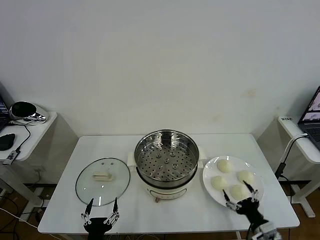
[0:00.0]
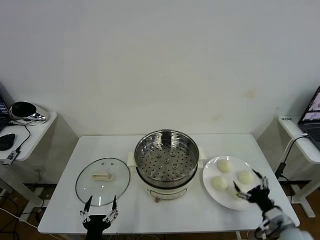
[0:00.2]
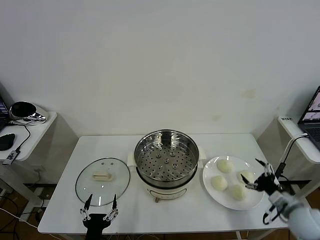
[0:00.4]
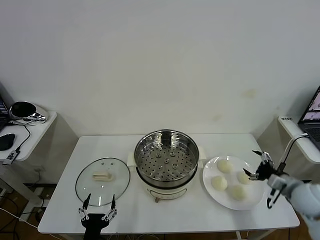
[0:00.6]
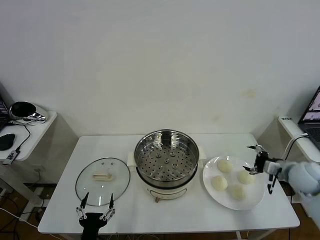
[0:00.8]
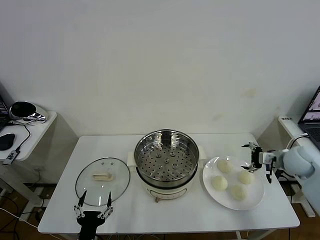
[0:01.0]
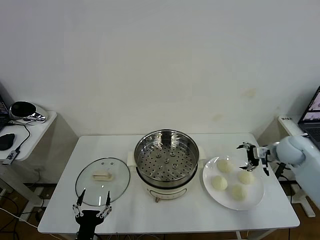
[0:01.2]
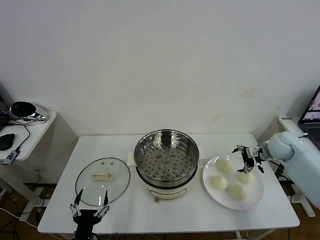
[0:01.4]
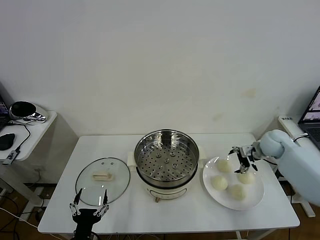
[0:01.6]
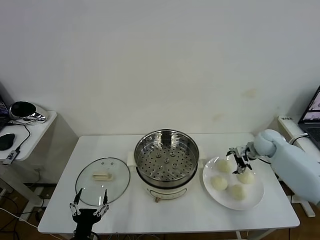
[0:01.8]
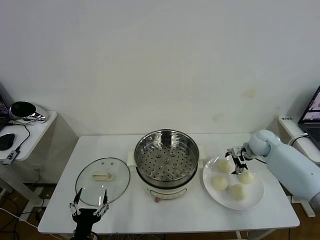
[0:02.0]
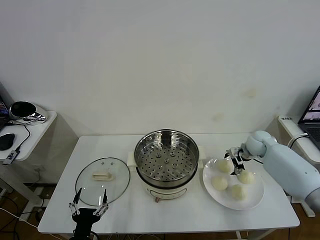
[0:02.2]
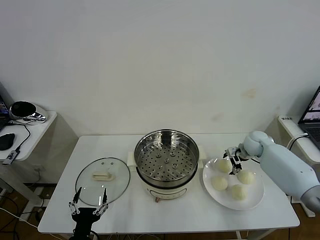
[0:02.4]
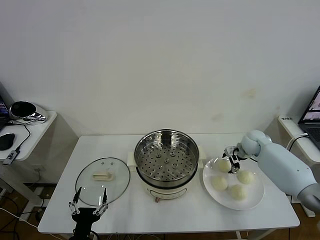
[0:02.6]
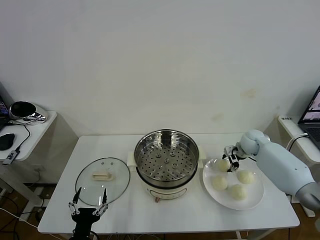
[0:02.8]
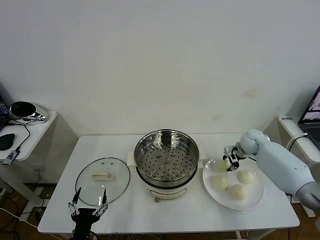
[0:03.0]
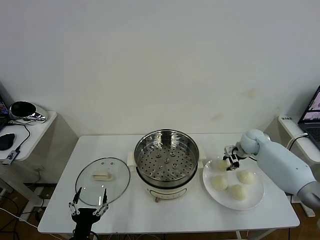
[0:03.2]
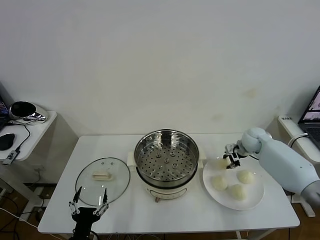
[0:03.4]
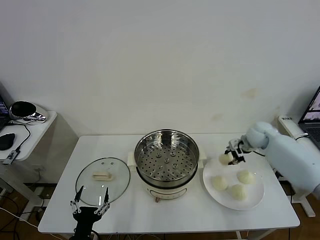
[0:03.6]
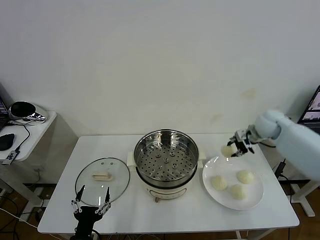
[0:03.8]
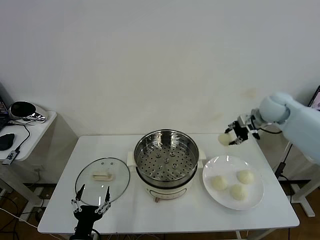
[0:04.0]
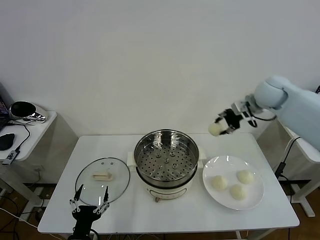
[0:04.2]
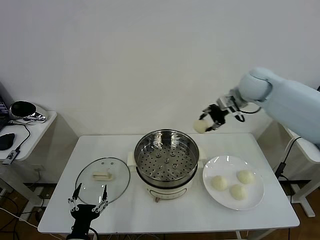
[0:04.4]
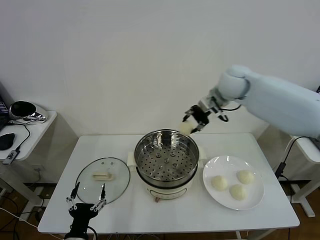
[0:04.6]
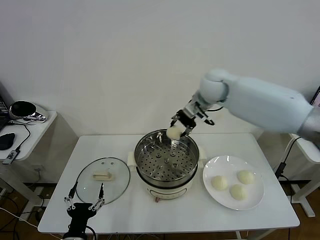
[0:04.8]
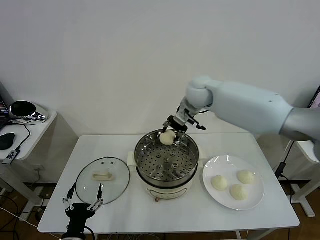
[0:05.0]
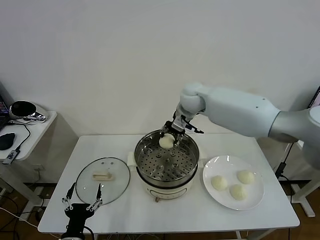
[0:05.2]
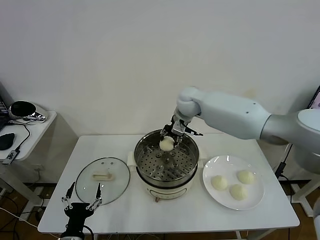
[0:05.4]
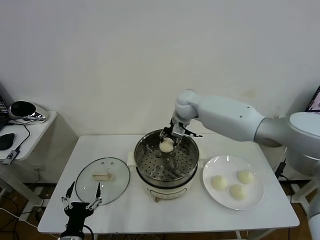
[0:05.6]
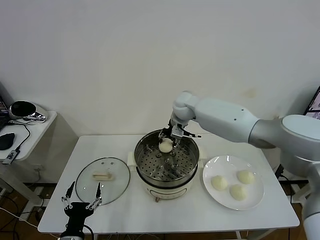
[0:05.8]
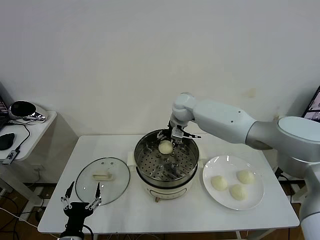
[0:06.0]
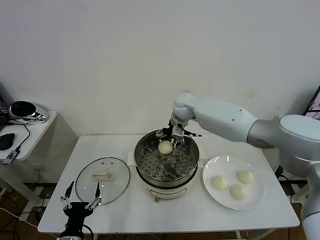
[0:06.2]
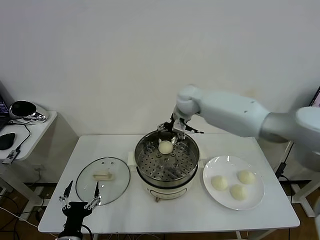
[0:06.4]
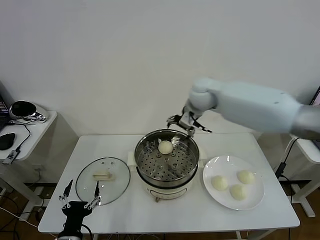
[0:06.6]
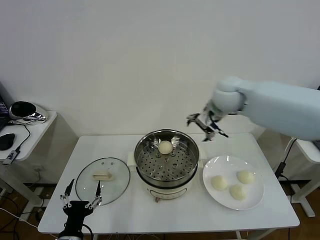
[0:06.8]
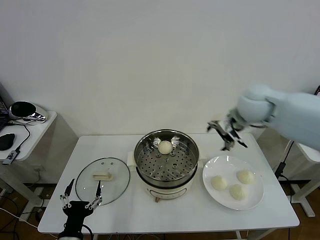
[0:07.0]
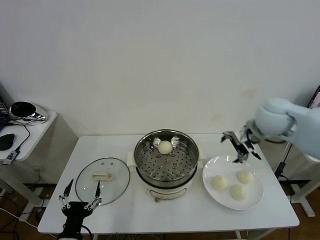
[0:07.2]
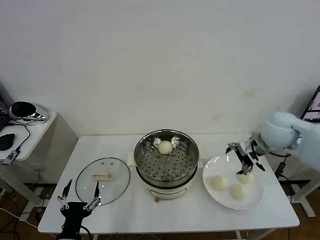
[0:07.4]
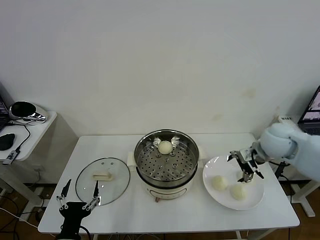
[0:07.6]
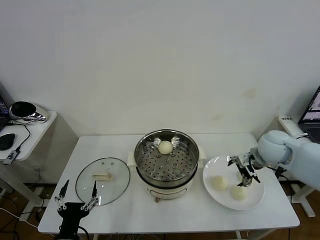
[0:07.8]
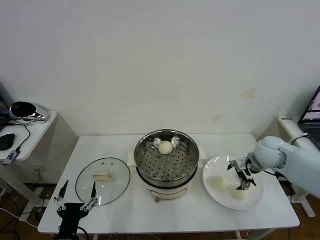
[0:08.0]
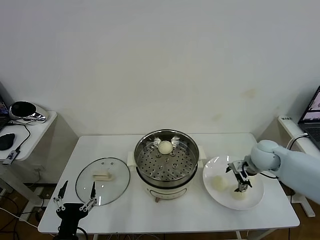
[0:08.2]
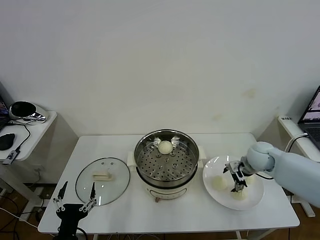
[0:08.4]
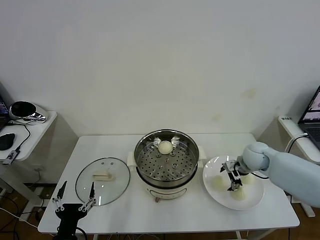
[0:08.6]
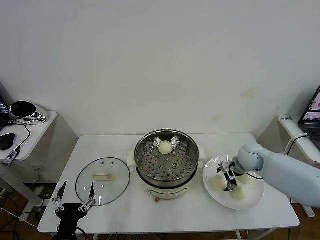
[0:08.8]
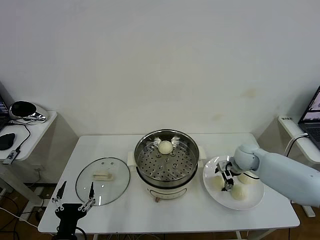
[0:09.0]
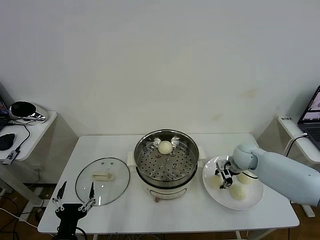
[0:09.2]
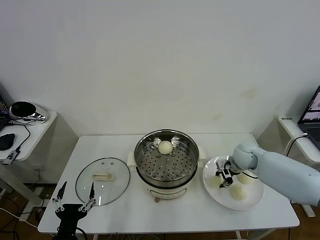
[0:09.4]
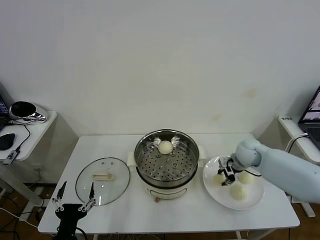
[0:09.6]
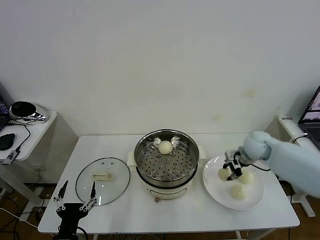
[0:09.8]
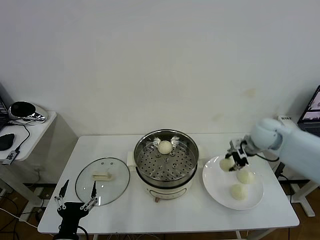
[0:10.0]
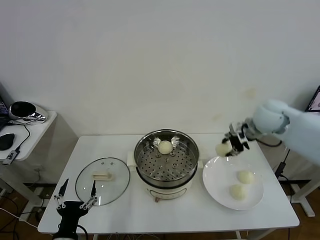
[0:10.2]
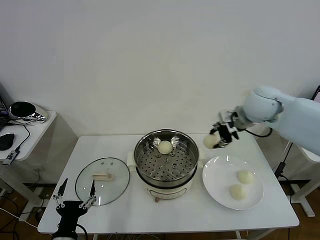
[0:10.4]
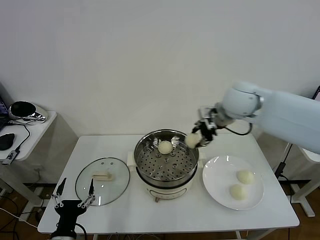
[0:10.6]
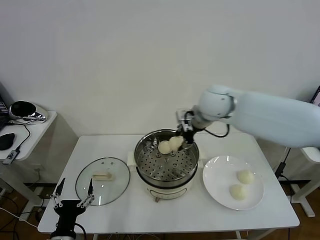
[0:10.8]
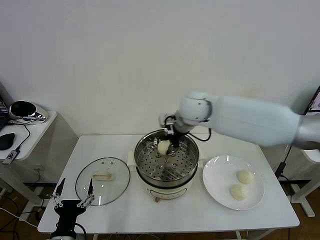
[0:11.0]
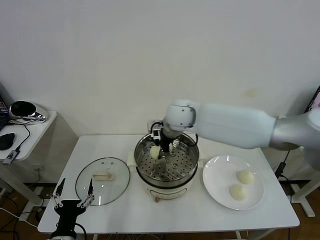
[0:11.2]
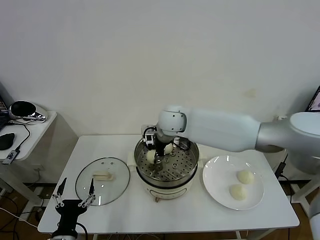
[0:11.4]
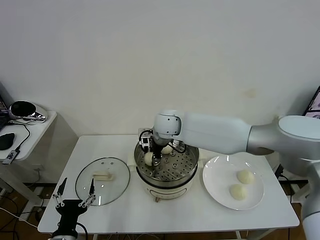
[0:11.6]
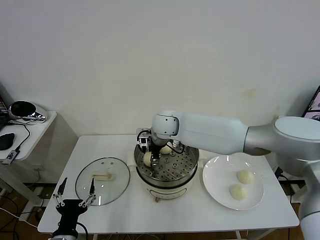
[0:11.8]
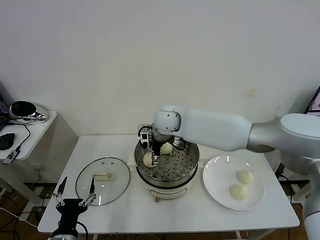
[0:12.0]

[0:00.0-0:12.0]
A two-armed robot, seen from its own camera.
Task of the whole recording: take steamed baozi put them in steamer then cover it.
Step, 0:00.0 to 0:02.8: Grasp the baozi in the plate with right gripper.
Step, 0:03.2 to 0:06.2: Place the baozi on the steamer with right gripper.
Step, 0:06.4 to 0:09.2: Grasp the baozi in the plate with right gripper.
Step, 0:09.4 to 0:12.0: Place the baozi on the steamer with right gripper.
0:01.6 to 0:03.0: The right gripper shifts by about 5 cm, and closes up.
0:03.0 to 0:04.4: The right gripper moves upward and to the left, approximately 30 cm.
0:04.4 to 0:06.0: The right gripper shifts about 20 cm to the left and downward, and opens up.
0:06.0 to 0:07.6: The right gripper goes roughly 30 cm to the right and backward.
0:07.6 to 0:09.0: The right gripper moves downward, about 15 cm.
0:09.0 to 0:10.4: The right gripper is displaced upward by some 25 cm, and closes.
0:10.4 to 0:12.0: The right gripper moves to the left, about 25 cm, and opens.

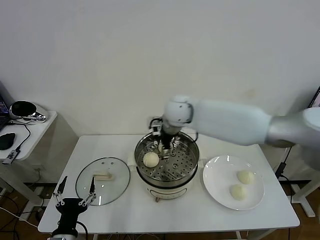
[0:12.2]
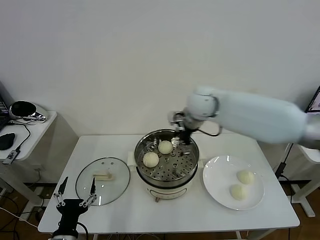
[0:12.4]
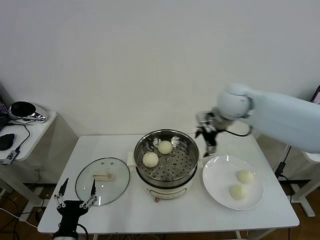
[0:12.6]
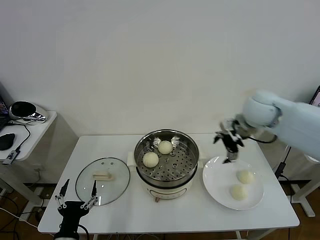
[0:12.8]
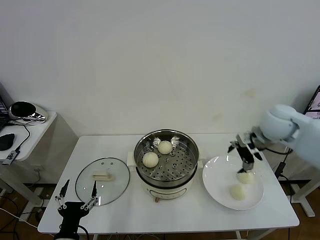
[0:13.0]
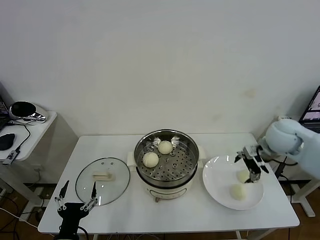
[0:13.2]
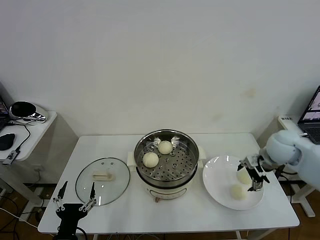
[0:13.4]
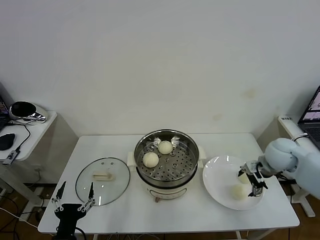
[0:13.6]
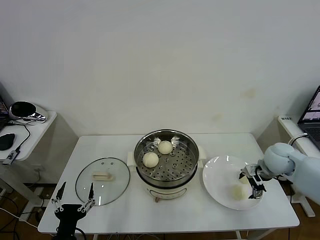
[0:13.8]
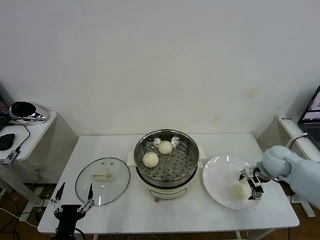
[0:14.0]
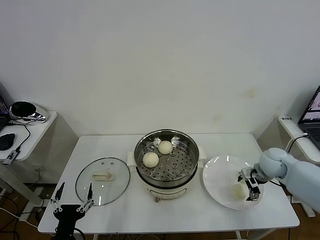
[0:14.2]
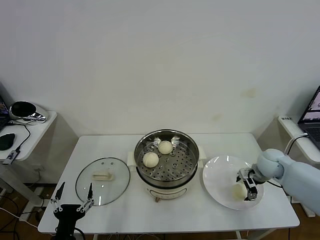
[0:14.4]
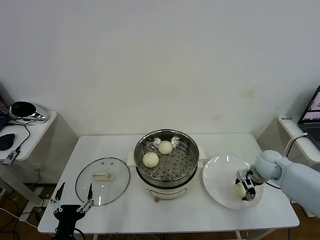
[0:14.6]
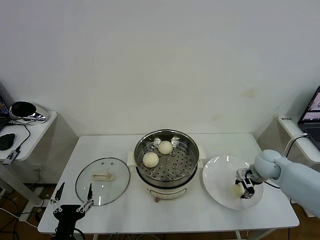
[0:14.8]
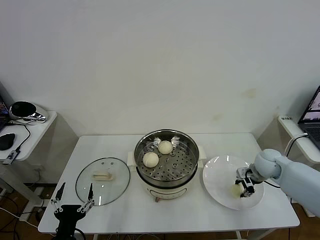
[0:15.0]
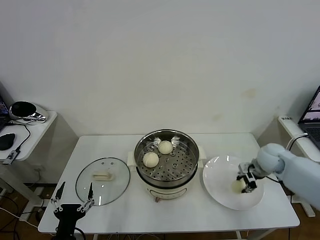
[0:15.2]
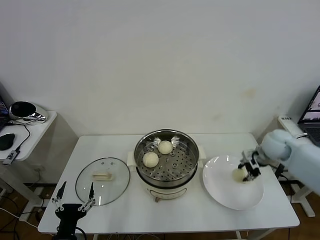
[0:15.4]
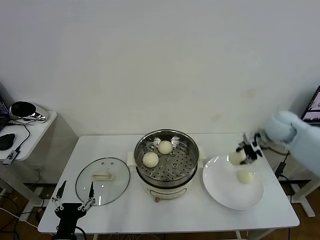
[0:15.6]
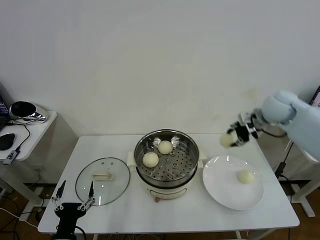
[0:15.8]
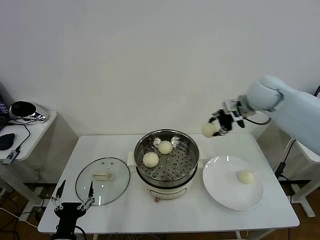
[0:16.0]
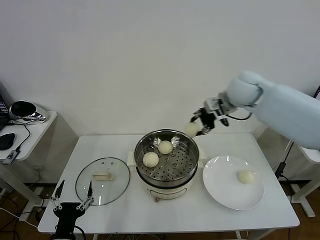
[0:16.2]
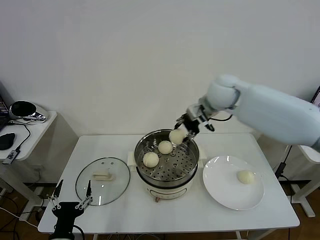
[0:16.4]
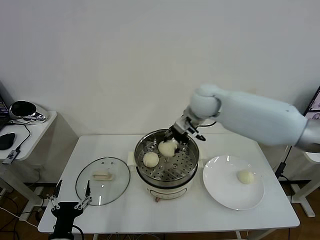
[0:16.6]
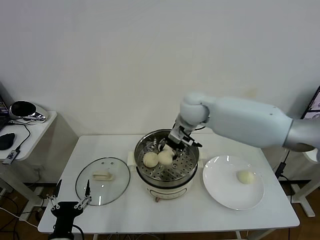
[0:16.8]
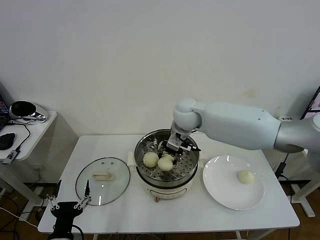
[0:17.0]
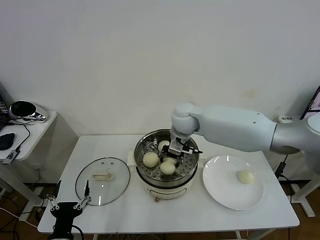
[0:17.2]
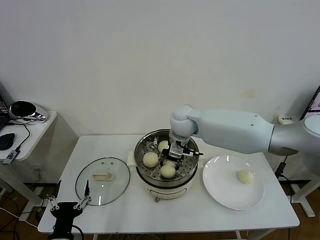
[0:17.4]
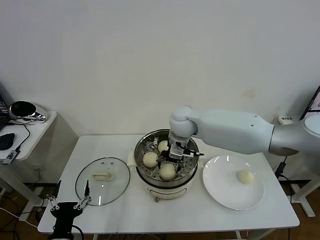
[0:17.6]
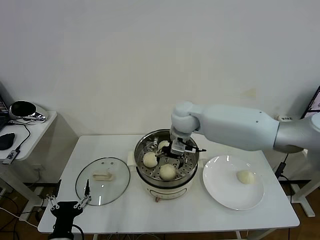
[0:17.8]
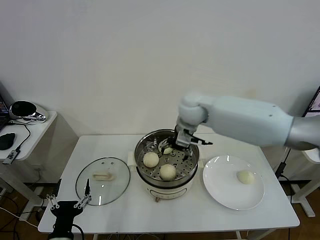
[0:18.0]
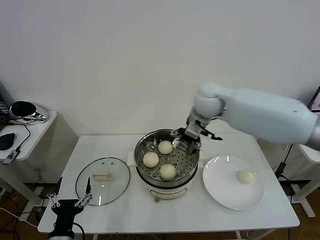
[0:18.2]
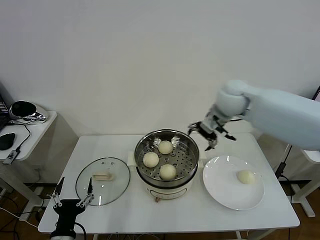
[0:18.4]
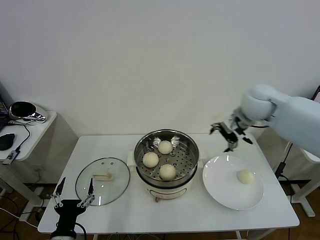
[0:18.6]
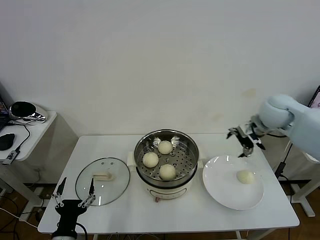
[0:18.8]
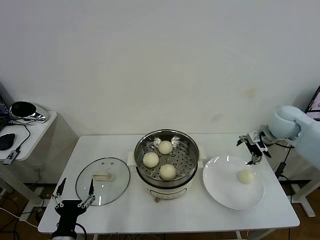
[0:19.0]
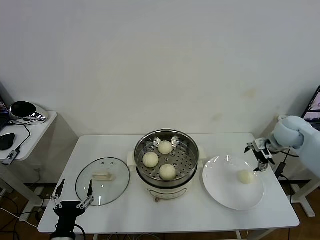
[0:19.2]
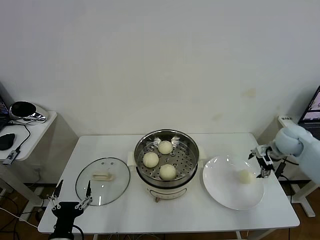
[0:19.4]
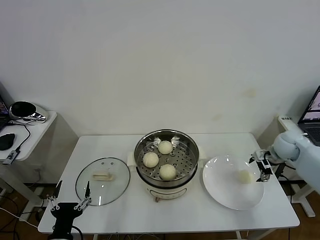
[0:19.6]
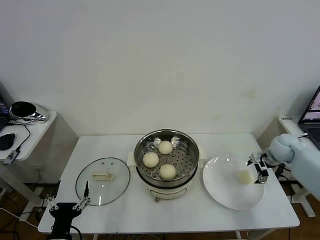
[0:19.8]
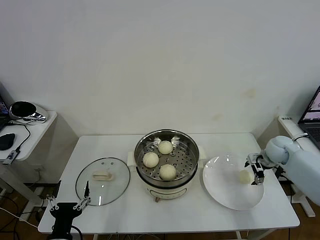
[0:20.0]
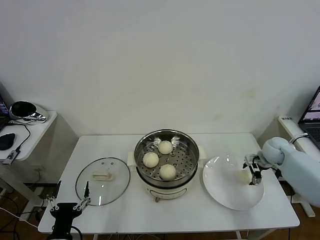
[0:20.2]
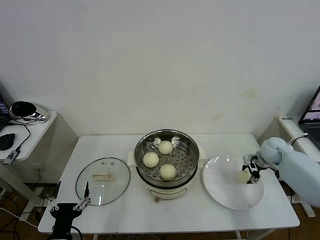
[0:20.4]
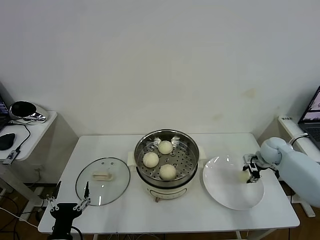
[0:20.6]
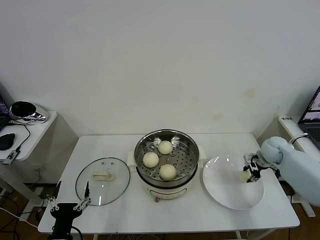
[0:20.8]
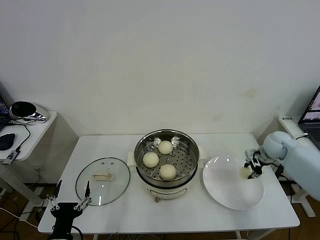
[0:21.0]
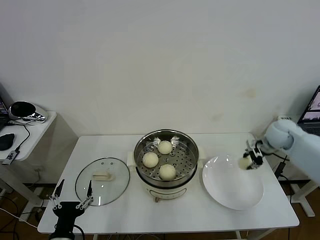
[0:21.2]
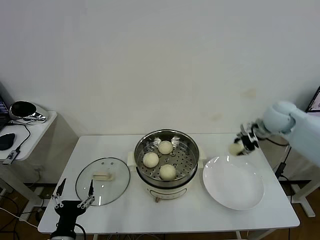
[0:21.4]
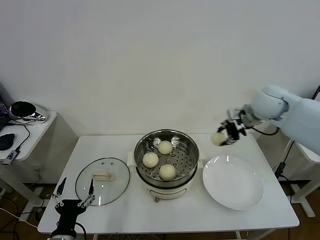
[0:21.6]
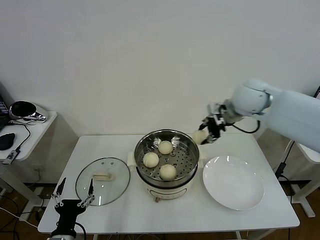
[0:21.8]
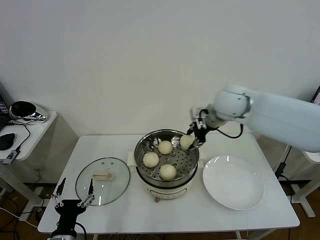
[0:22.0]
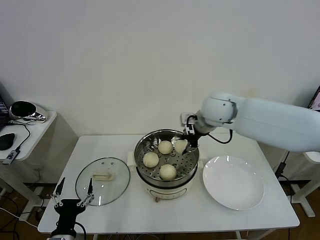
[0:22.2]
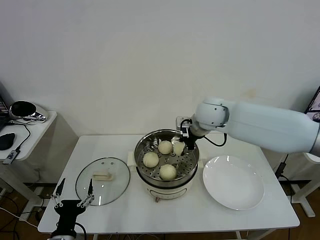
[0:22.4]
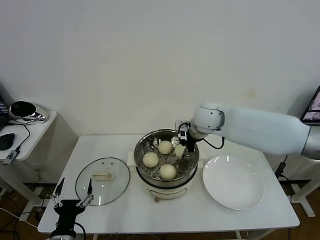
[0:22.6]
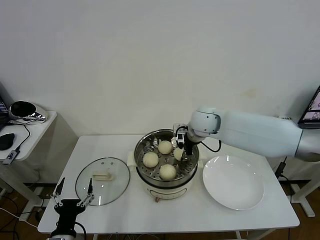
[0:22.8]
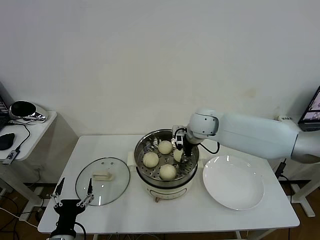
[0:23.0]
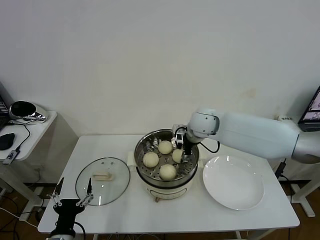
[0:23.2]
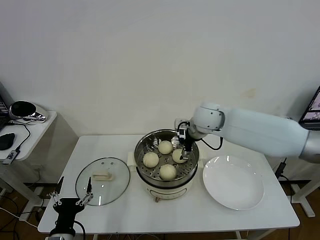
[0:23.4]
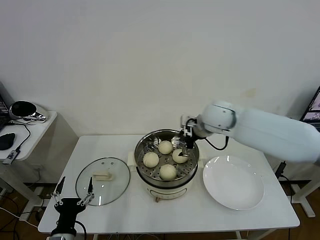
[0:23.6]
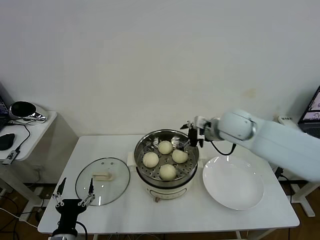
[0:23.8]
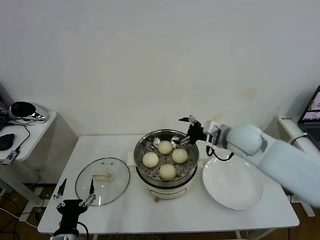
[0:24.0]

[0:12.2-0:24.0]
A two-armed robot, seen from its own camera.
Task of the whole recording: take steamed baozi put them in steamer then cover it.
Step, 0:12.2 to 0:15.0: Grasp the baozi in the plate with right gripper.
Step, 0:15.2 to 0:17.8: Place the baozi on the steamer with right gripper.
Step, 0:18.0 to 0:20.6: Grasp the baozi in the plate with right gripper.
Step, 0:20.8 to 0:23.4: Place the baozi on the steamer with right gripper.
0:12.2 to 0:13.6: The right gripper goes roughly 30 cm to the right.
0:13.6 to 0:15.2: The right gripper closes up.
0:15.2 to 0:16.6: The right gripper heads to the left and upward, covering roughly 30 cm.
0:16.6 to 0:18.2: The right gripper travels downward and back again, some 5 cm each way, and opens up.
0:18.2 to 0:19.6: The right gripper travels to the right and downward by approximately 35 cm.
0:19.6 to 0:21.0: The right gripper closes up.
0:21.0 to 0:22.6: The right gripper moves to the left and upward, approximately 30 cm.
0:22.6 to 0:24.0: The right gripper shifts approximately 10 cm to the right and backward, and opens its fingers.
